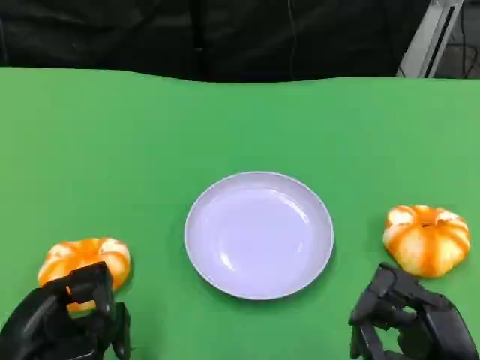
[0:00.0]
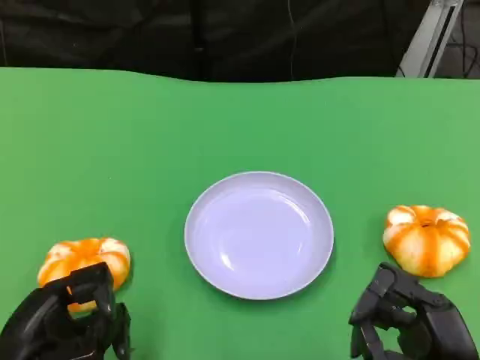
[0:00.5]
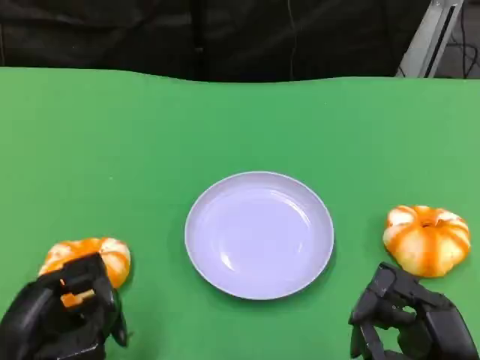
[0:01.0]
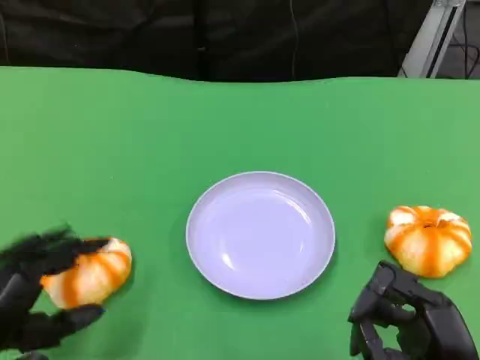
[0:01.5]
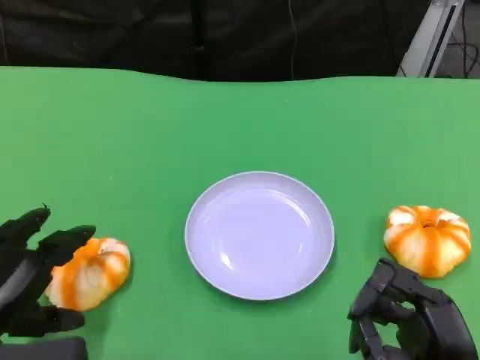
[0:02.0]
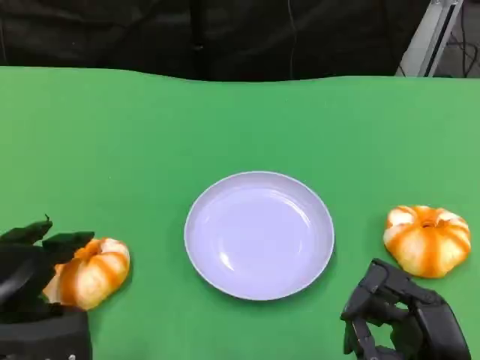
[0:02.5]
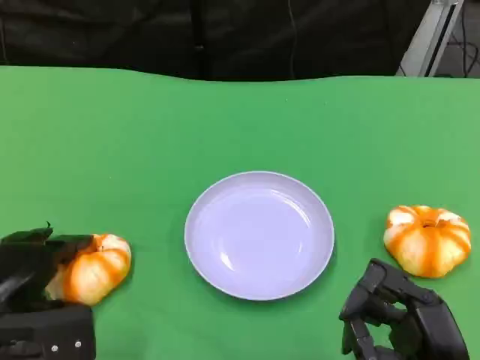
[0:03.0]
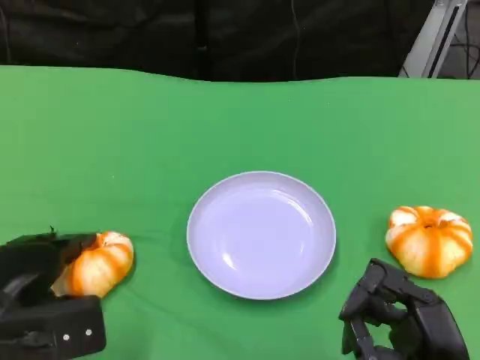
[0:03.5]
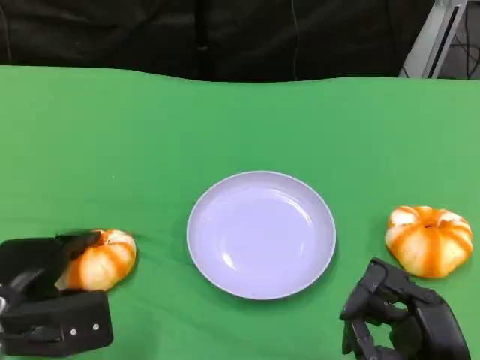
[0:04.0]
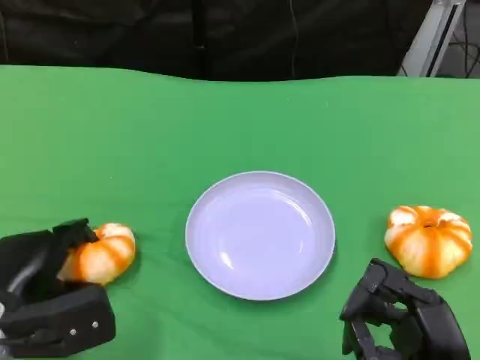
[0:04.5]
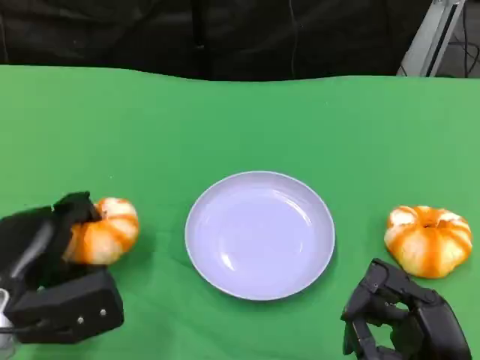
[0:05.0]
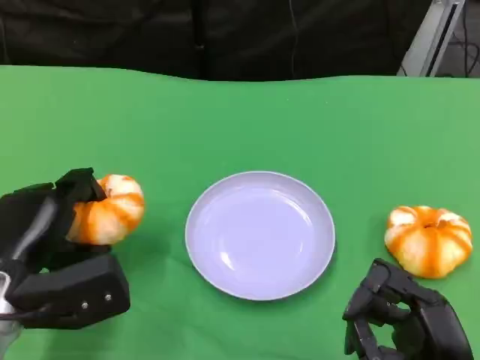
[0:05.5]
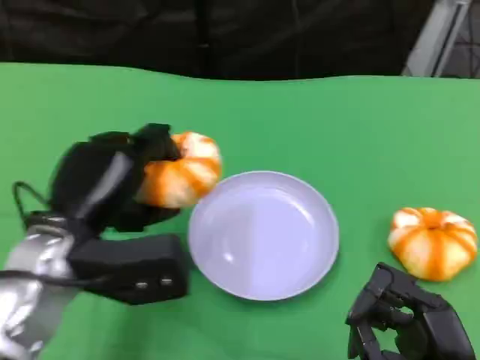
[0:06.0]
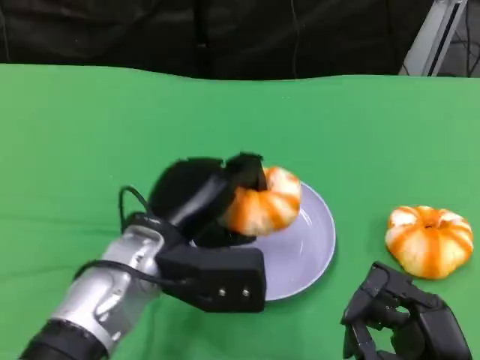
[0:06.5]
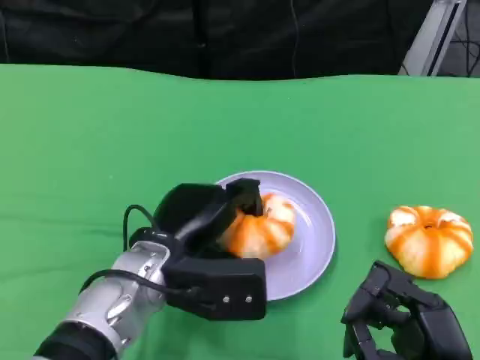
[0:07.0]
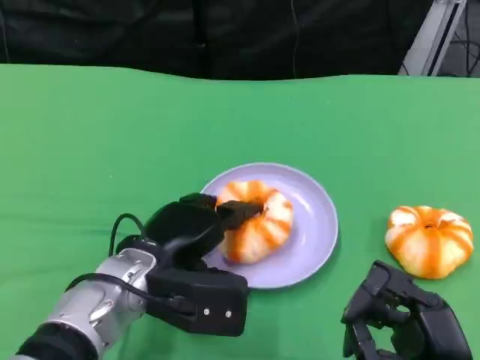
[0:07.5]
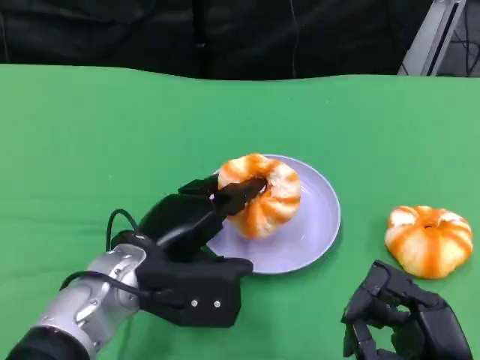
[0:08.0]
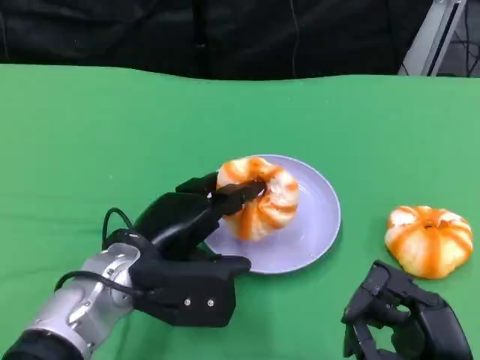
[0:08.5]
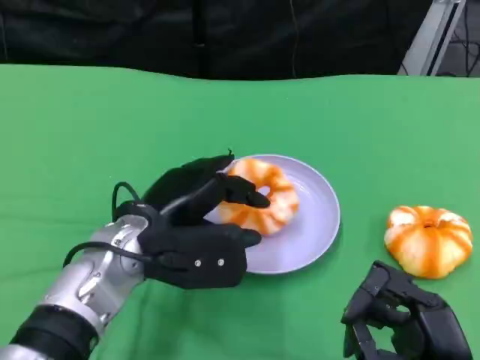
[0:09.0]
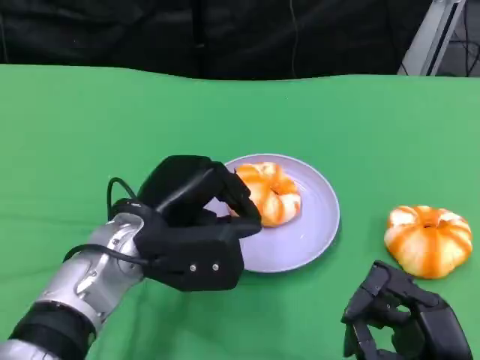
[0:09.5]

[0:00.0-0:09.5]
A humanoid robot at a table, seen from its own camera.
Task of the whole recording: Grasp the bread from the table and place it into the plate.
0:02.0 to 0:04.0: The left hand ends up about 5 cm from where it was.
0:05.5 to 0:07.5: The left hand moves to the right, about 10 cm.
0:07.5 to 0:09.5: The hands stay close to where they were, moving slightly.

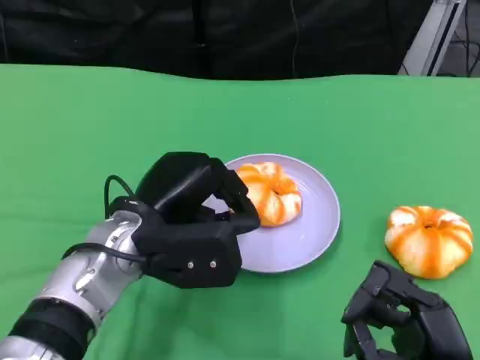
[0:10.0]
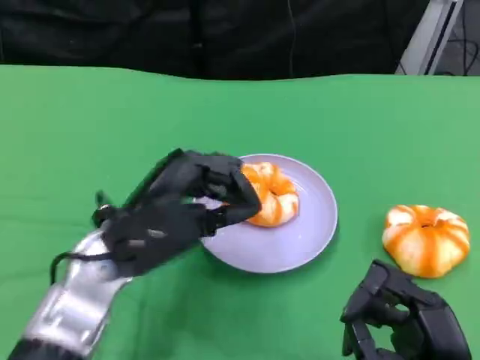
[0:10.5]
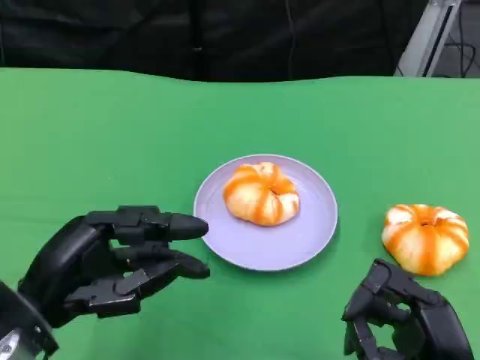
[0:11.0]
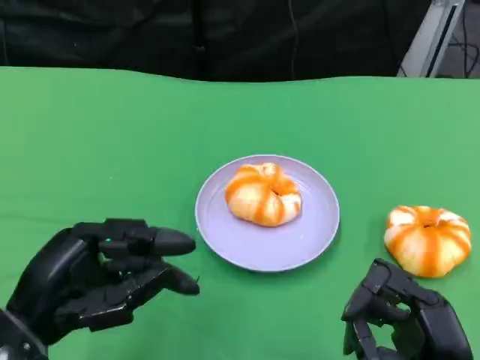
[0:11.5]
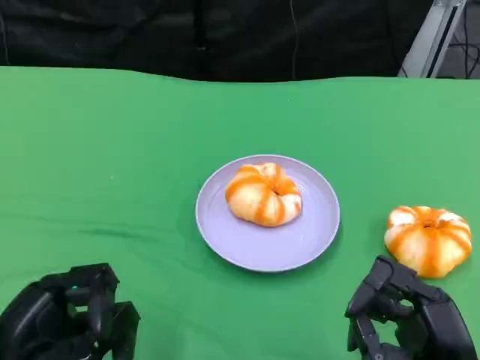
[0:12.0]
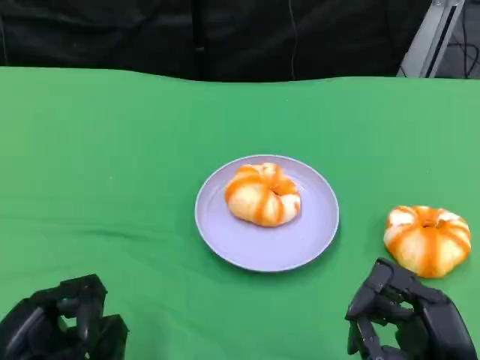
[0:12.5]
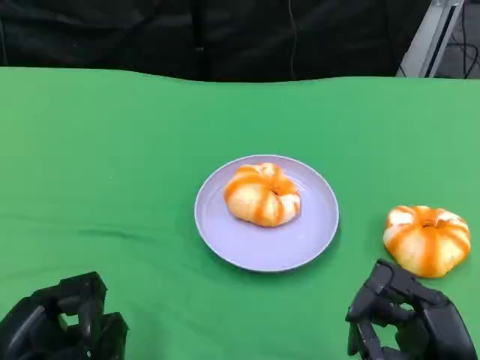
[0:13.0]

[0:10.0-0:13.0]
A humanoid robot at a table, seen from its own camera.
Task of the whole recording: Grasp the bread from the table and place it into the plate.
0:10.0 to 0:11.5: The left hand heads to the left and backward, covering some 15 cm.
0:11.5 to 0:13.0: The left hand travels downward by roughly 5 cm.

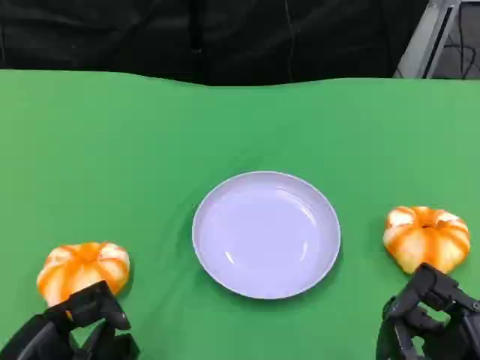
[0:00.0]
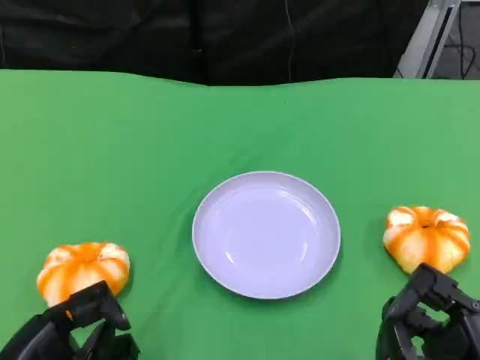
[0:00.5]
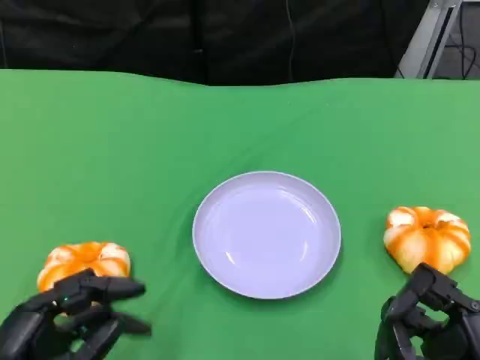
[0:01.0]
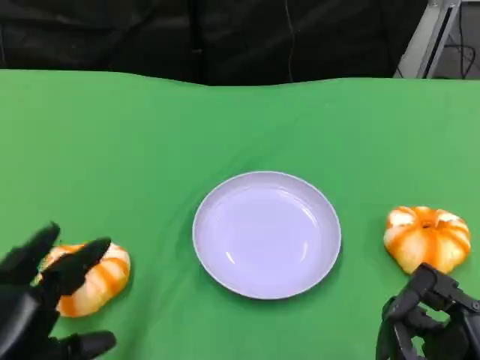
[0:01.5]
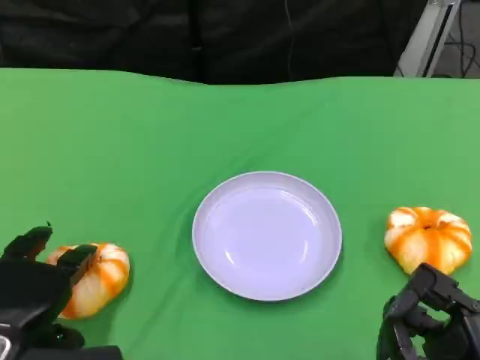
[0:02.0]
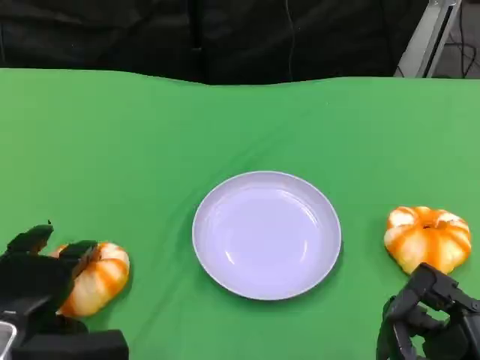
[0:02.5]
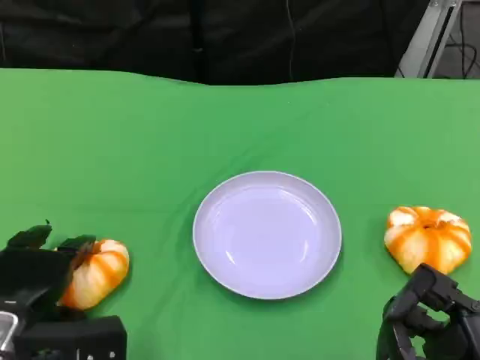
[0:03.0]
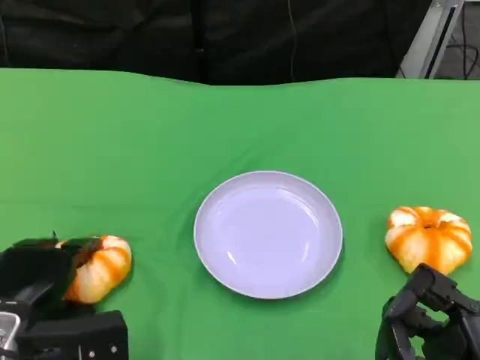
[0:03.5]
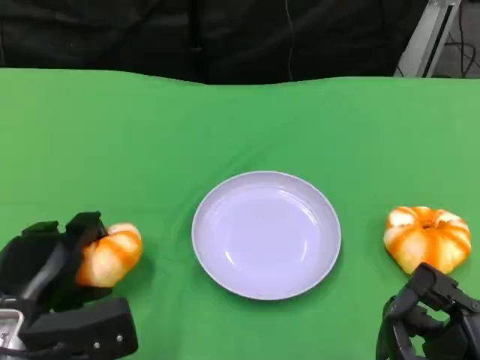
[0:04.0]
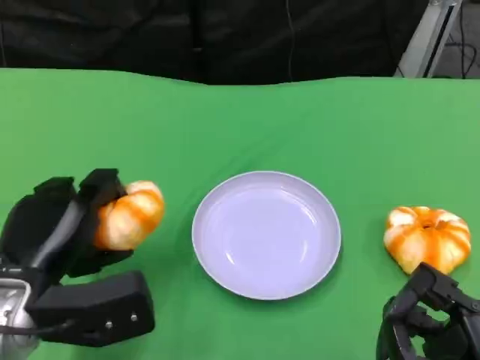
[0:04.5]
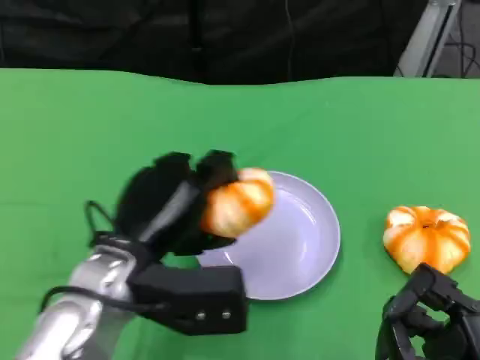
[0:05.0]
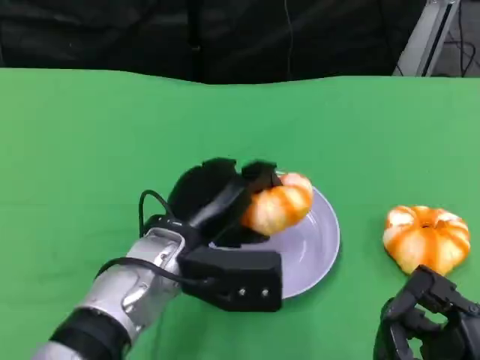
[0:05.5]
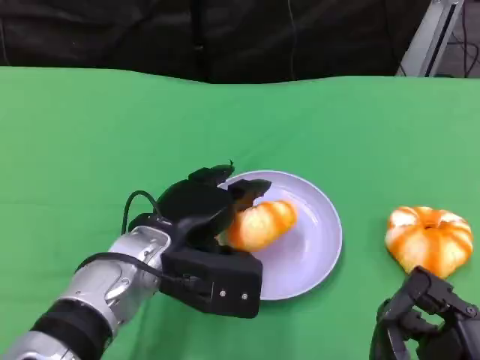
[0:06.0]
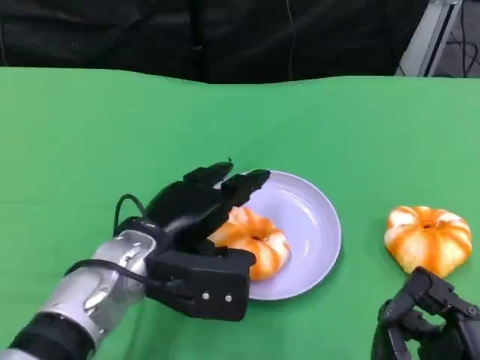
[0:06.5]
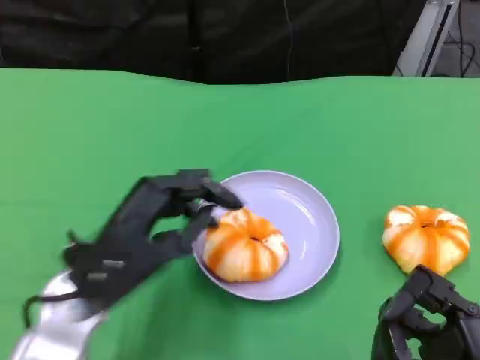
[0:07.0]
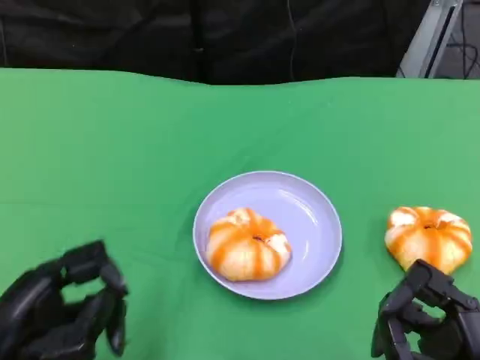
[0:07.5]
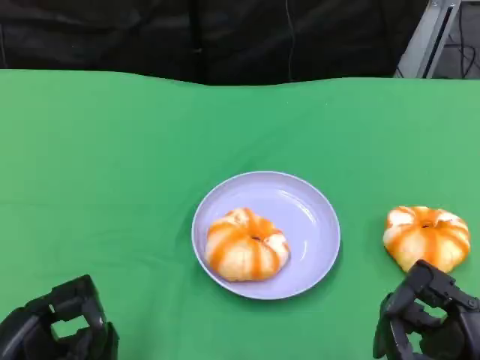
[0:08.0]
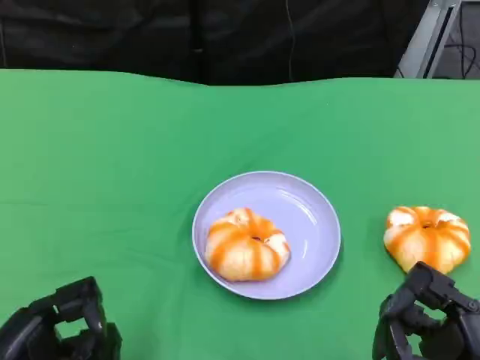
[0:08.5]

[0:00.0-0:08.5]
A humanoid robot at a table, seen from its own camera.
Task of the whole recording: Grasp the bread from the table and place it into the plate.
0:00.0 to 0:02.0: The left hand moves forward, some 5 cm.
0:04.0 to 0:06.5: The left hand goes some 15 cm to the right and forward.
0:06.5 to 0:08.5: The left hand travels backward and to the left by about 20 cm.

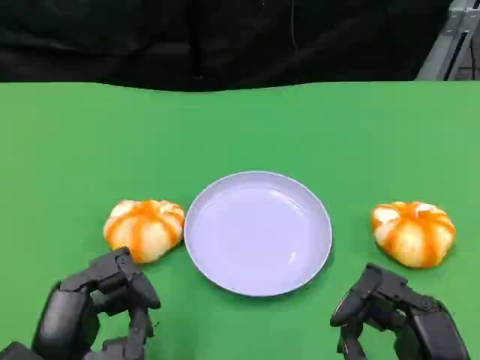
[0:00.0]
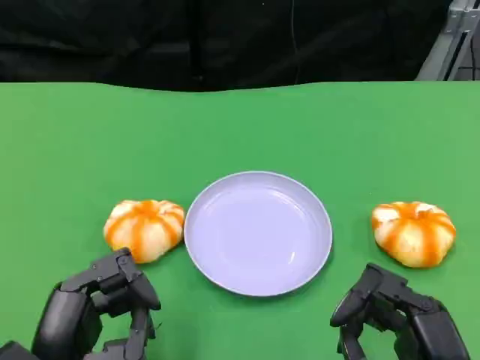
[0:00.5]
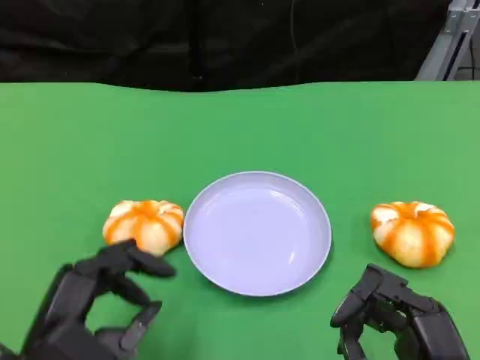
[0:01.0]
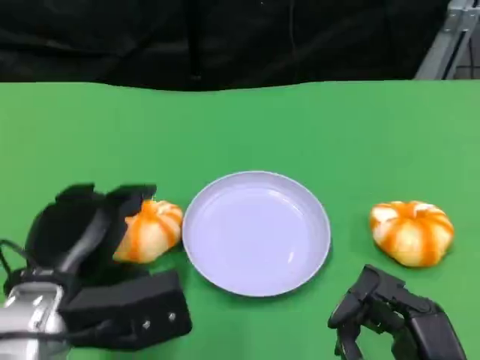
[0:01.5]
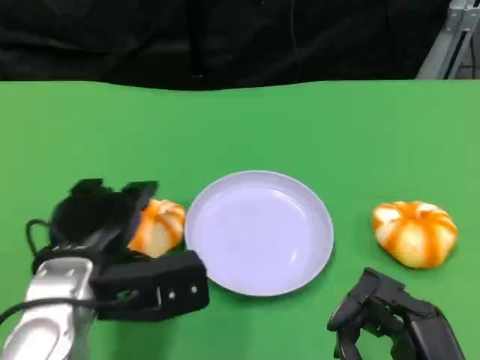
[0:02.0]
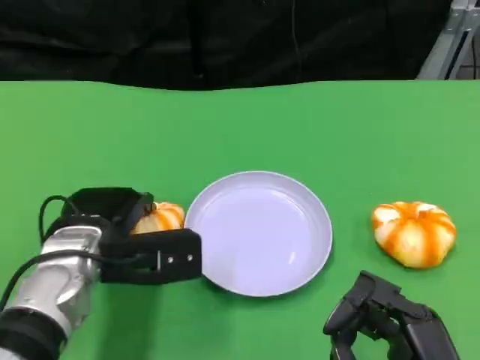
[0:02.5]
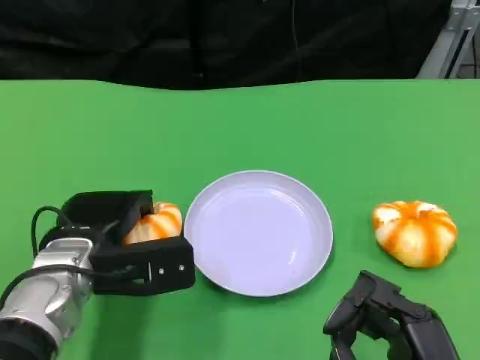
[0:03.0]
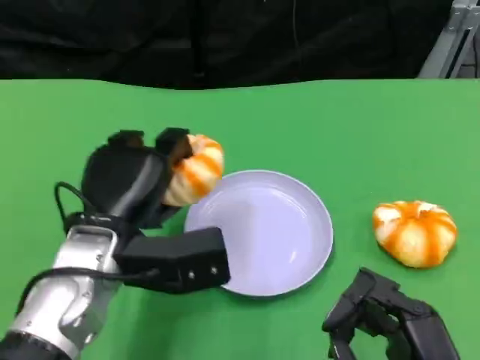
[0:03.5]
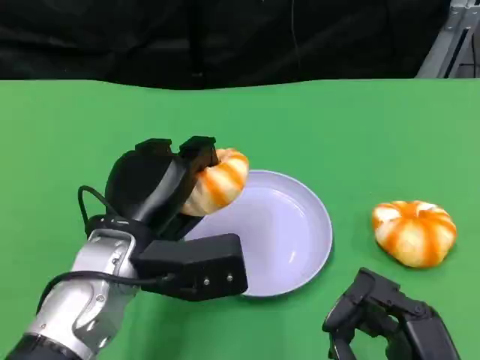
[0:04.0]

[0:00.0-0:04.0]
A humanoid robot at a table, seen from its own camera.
Task of the whole recording: Grasp the bread from the table and place it into the plate.
0:00.0 to 0:02.0: The left hand moves forward, roughly 10 cm.
